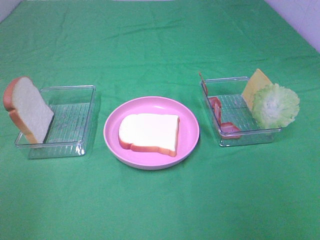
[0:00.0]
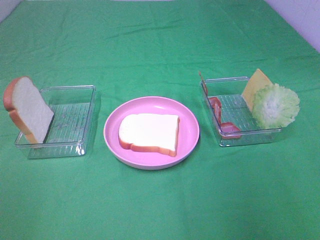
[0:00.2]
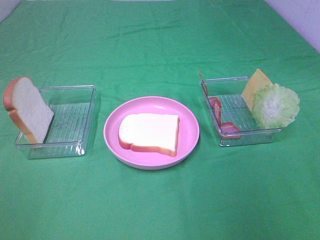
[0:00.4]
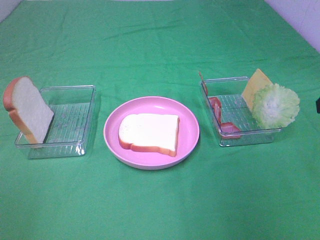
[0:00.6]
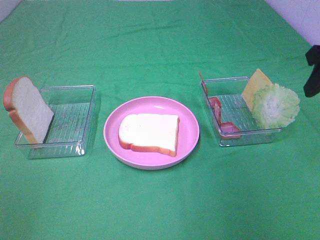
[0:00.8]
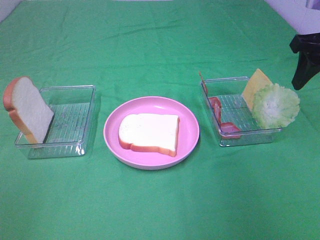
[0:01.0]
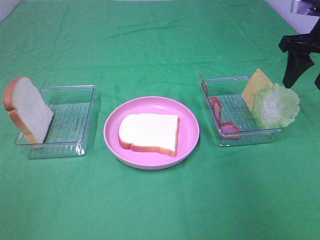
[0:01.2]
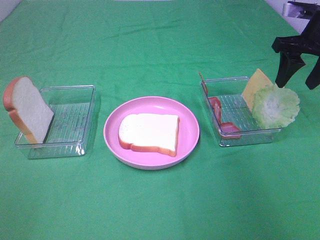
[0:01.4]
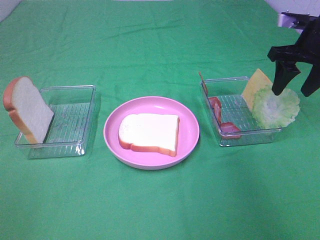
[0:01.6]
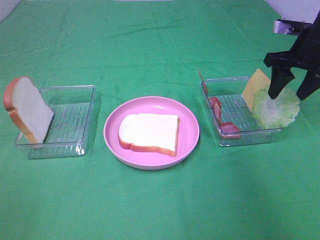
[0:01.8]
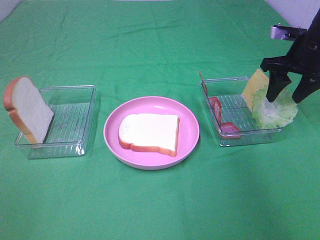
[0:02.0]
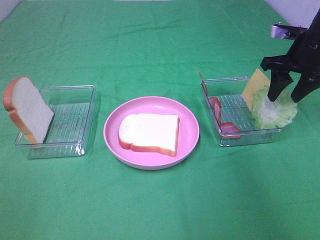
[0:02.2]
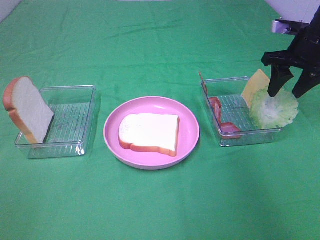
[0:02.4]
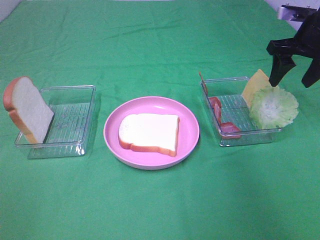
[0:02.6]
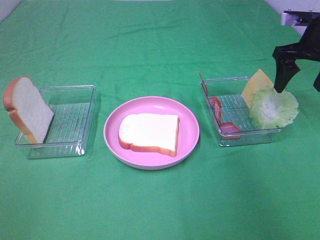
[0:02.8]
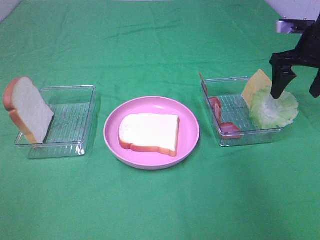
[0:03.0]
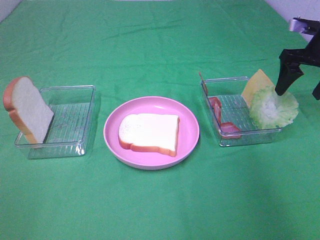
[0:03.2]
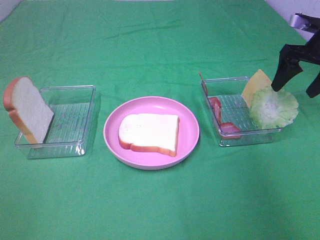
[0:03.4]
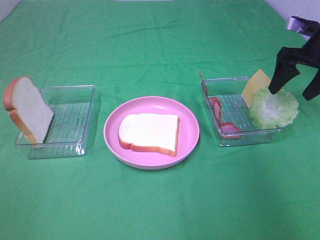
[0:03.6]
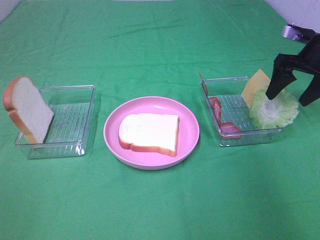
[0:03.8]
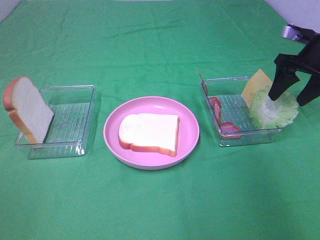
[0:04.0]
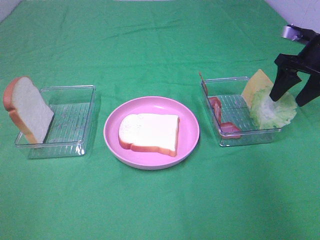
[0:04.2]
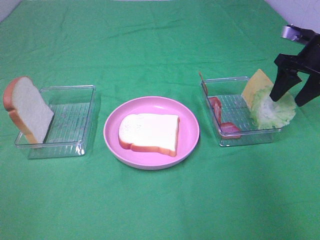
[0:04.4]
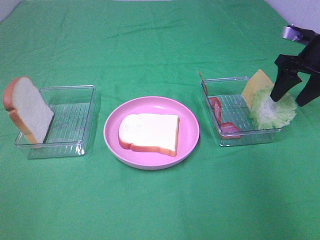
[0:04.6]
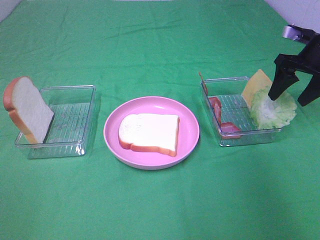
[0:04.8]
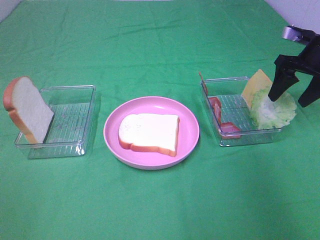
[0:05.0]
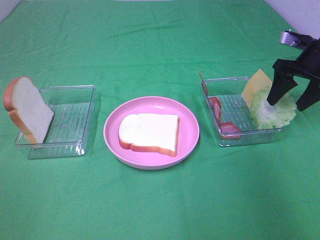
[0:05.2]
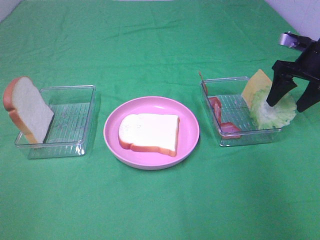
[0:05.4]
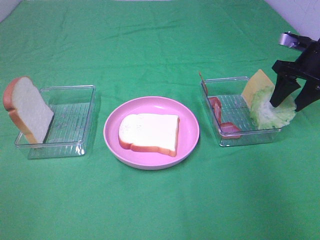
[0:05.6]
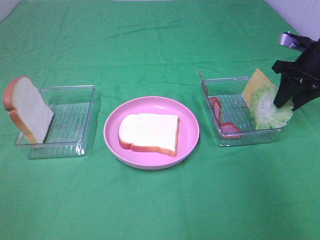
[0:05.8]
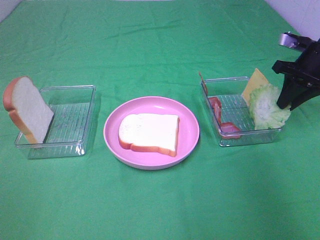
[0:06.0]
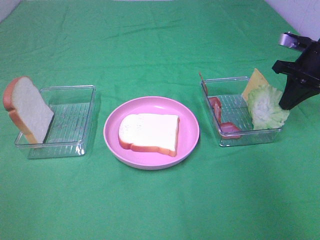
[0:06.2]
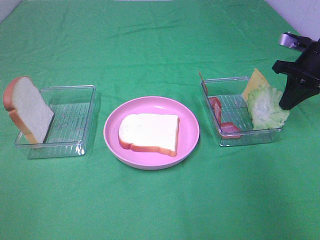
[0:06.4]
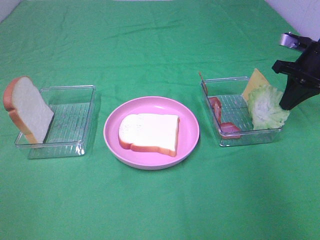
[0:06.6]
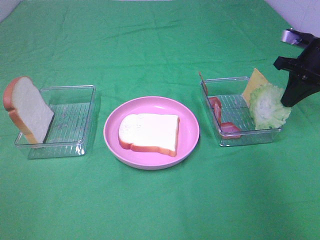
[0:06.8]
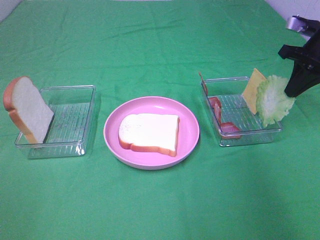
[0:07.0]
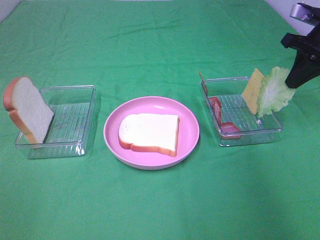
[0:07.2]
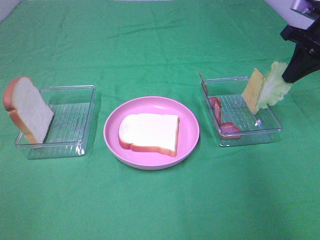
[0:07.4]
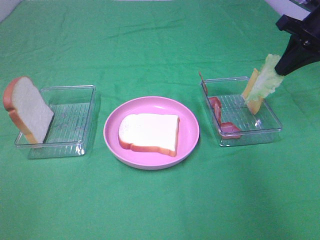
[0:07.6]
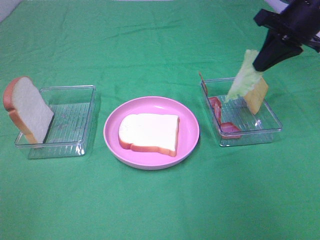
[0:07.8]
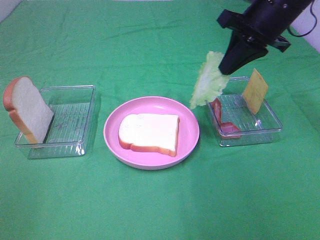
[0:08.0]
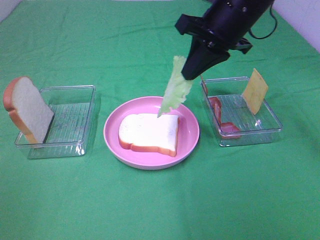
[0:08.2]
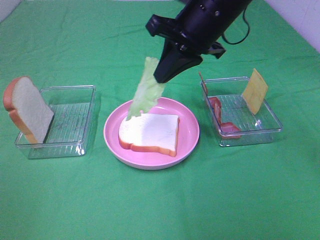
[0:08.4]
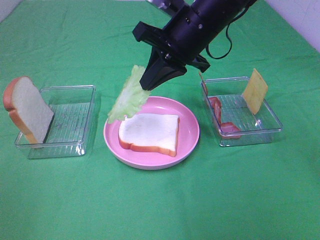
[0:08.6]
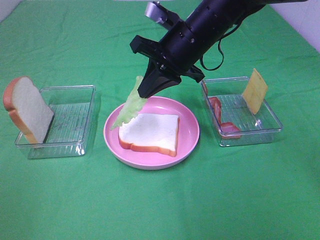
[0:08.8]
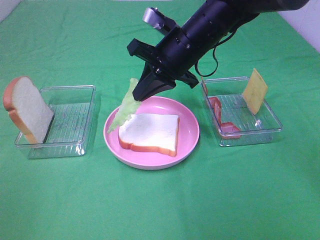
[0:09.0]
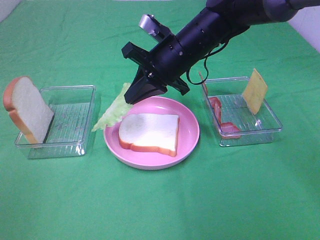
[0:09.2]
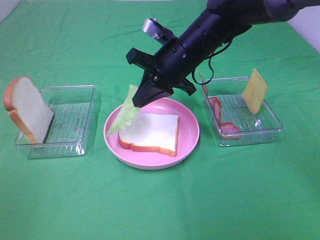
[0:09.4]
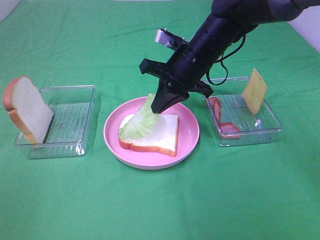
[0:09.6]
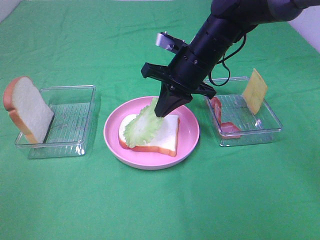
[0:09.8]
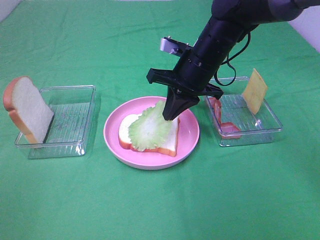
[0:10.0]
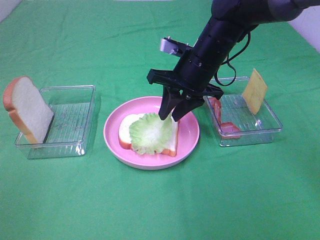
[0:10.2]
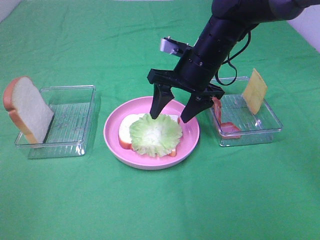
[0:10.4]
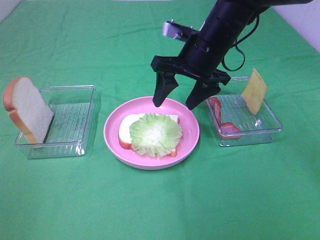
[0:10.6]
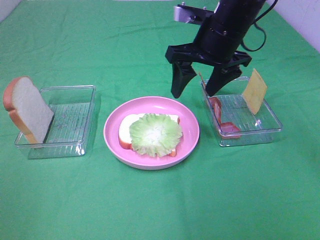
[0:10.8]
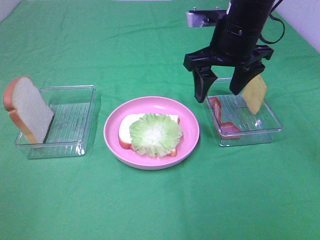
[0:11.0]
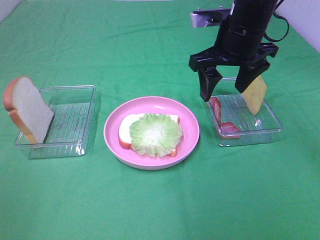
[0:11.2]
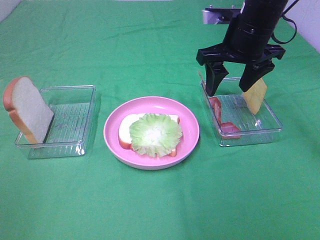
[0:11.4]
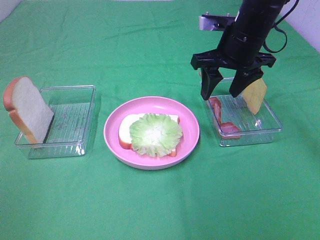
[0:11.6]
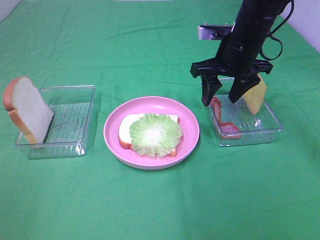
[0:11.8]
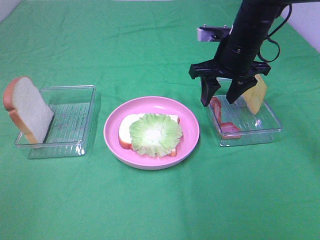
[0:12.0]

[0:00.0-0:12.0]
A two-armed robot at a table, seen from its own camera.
Task of the whole recording: Make sandwiches.
Step, 0:00.0 to 0:06.6: Right hand:grab the lettuce slice.
Step, 0:06.8 to 0:10.4: Right hand:place the lettuce slice on the bread slice.
0:00.0 to 0:01.6: The right gripper heads forward, covering about 35 cm.
0:01.6 to 0:04.4: The grippers make only small movements.
0:04.4 to 0:06.0: The right gripper closes up.
0:06.0 to 0:07.6: The right gripper travels upward by about 10 cm.
0:07.6 to 0:09.0: The right gripper shifts about 25 cm to the left.
0:09.0 to 0:10.4: The right gripper opens up.
0:10.4 to 0:12.0: The right gripper shifts some 5 cm to the right.

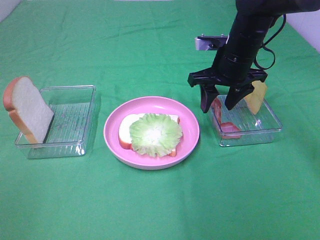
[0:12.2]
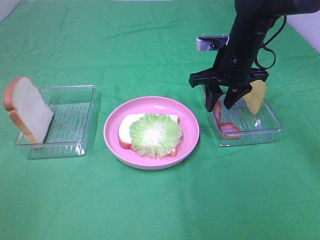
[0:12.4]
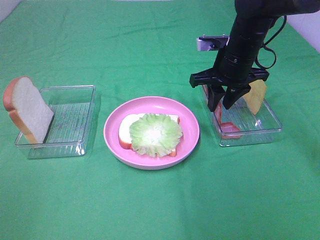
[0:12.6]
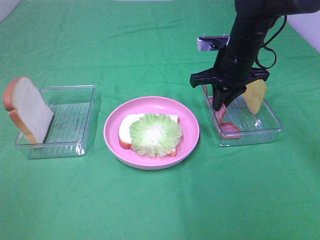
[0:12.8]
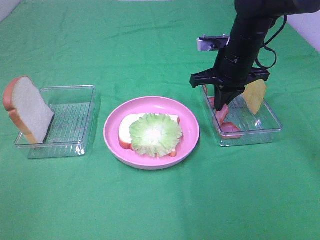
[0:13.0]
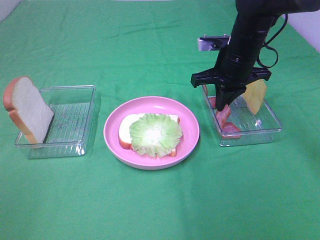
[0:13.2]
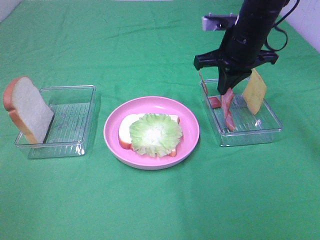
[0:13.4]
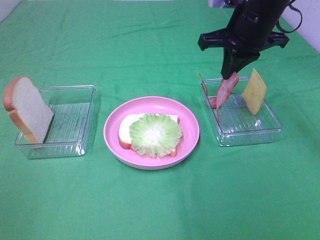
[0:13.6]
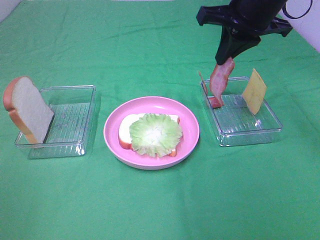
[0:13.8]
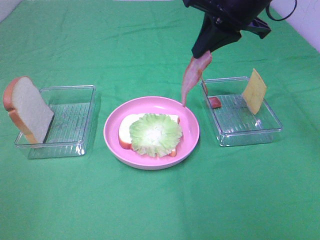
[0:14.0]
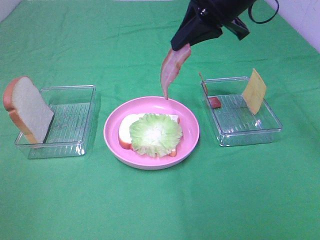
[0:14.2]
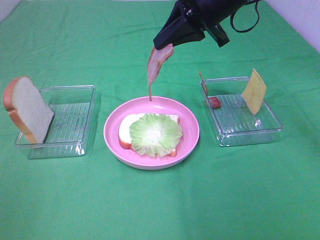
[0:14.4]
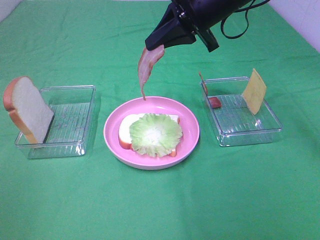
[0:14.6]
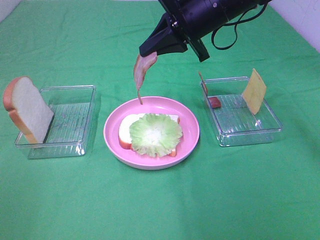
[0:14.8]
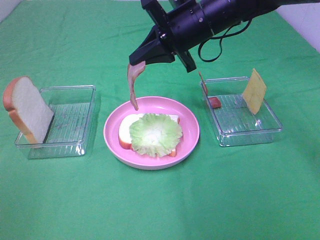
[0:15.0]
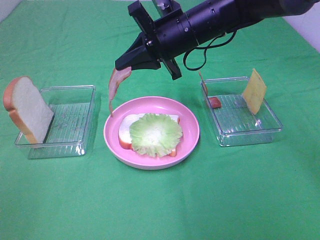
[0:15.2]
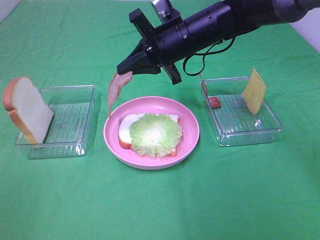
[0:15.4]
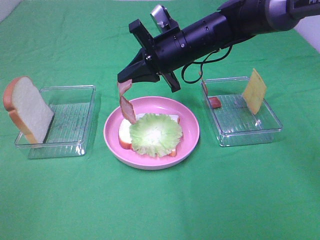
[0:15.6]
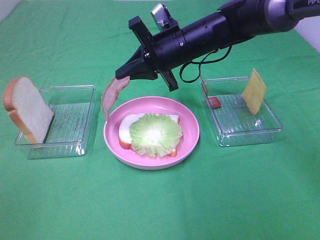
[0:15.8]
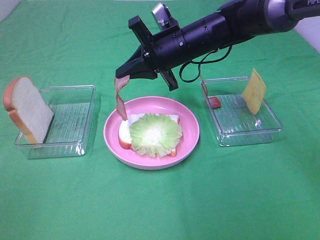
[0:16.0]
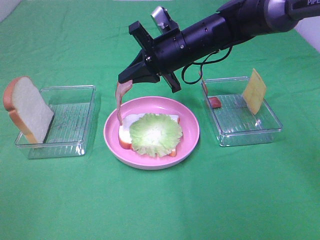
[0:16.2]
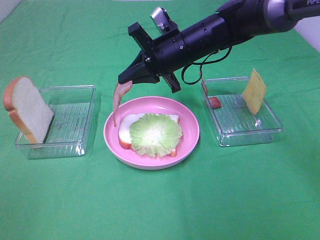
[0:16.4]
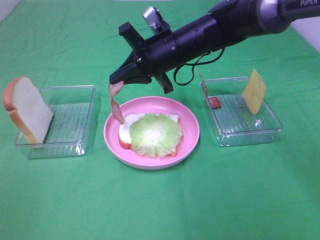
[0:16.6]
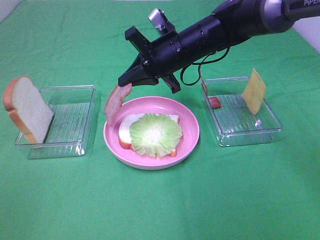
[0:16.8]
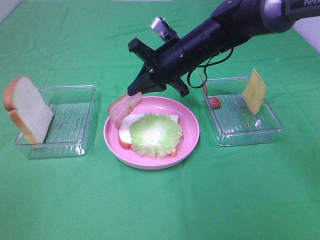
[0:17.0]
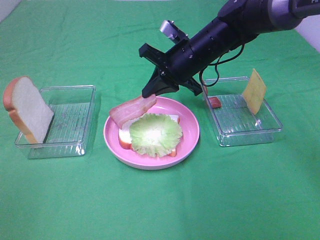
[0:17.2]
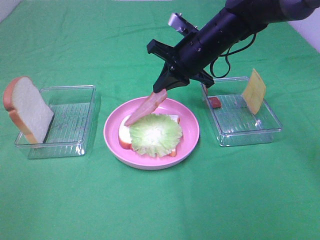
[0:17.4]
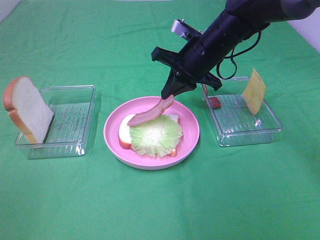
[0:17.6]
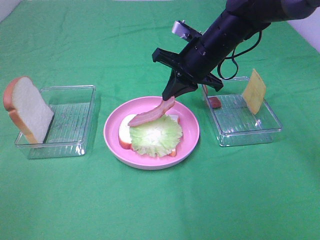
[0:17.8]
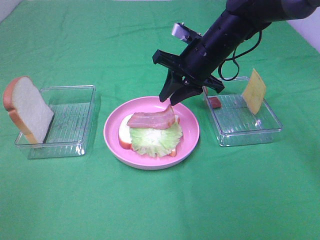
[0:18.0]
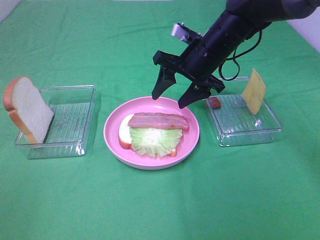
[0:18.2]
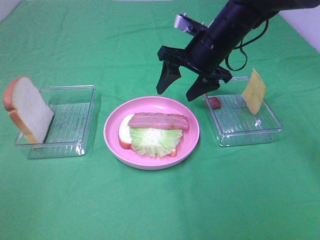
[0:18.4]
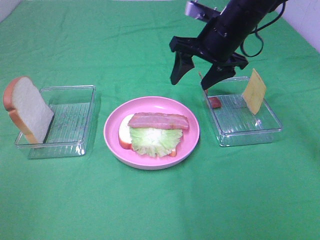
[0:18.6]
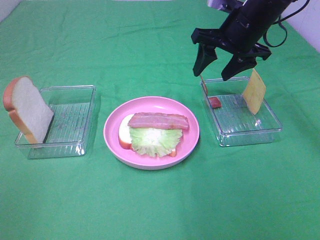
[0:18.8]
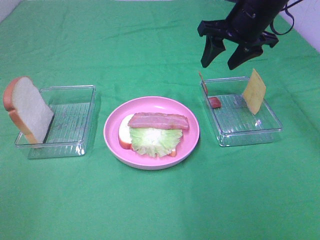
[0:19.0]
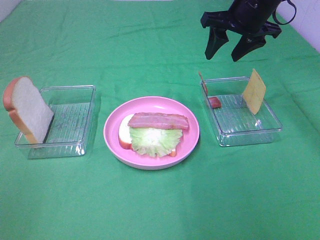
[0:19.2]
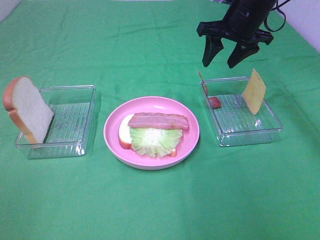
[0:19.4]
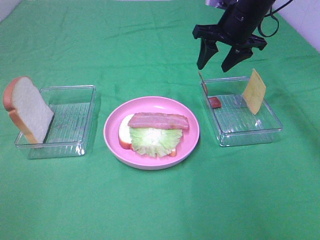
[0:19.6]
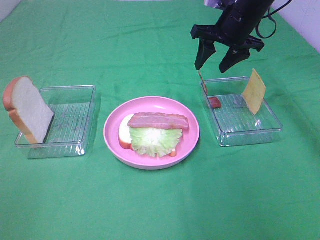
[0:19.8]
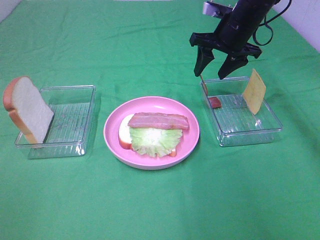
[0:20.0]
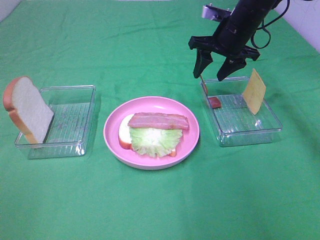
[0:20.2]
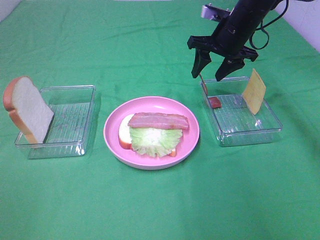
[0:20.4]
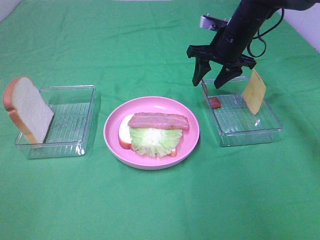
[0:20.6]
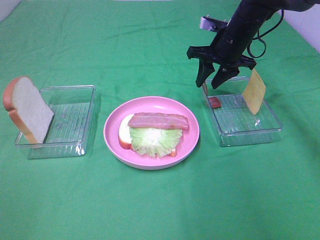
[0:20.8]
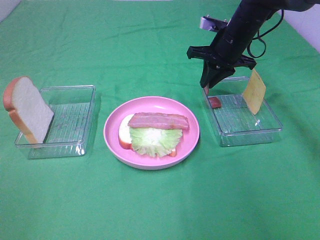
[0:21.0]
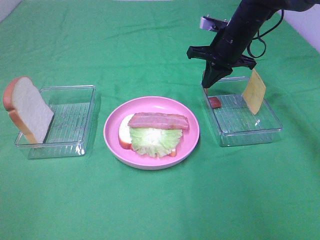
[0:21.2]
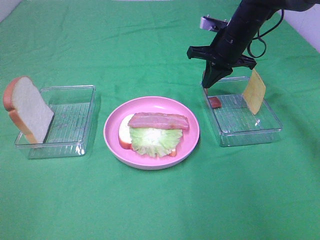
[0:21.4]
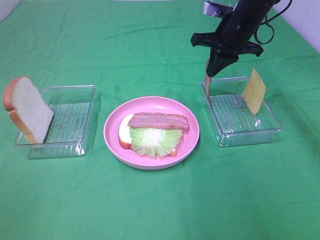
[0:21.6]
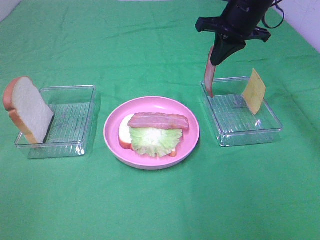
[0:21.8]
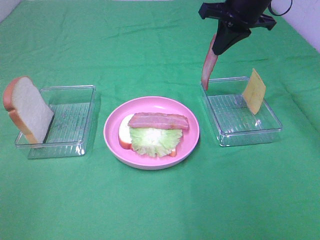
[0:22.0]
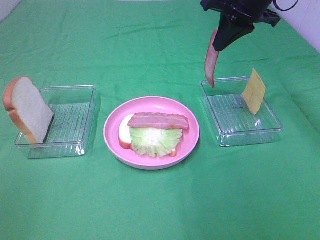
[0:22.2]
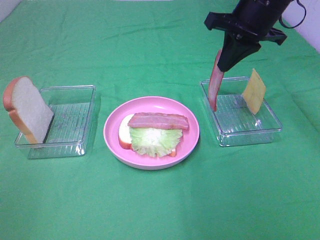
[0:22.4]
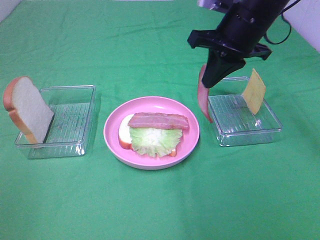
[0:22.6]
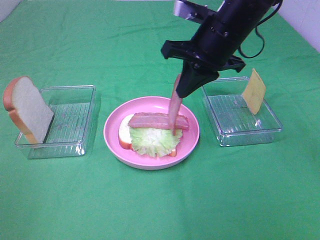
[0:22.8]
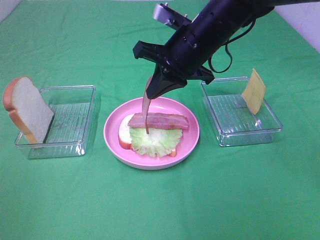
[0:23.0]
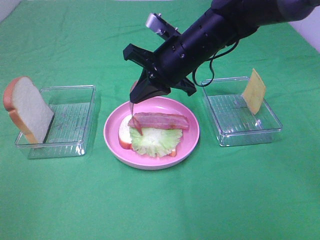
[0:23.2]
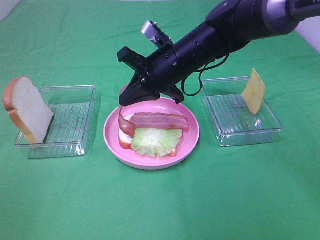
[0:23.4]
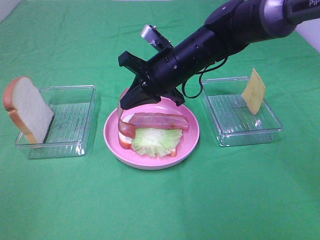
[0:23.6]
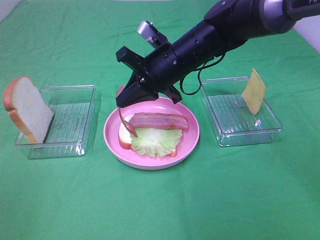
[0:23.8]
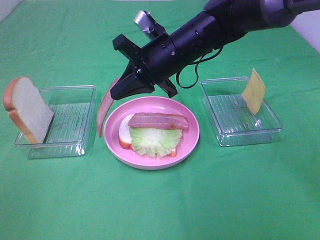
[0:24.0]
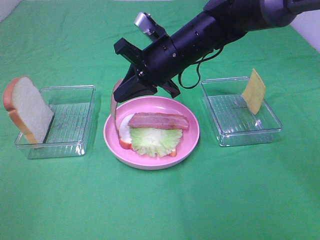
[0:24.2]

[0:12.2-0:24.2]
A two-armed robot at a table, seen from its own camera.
Task of the whole recording: Make sandwiches.
Step, 0:13.4 to 0:18.2: Right hand:place bacon on lettuce slice.
Step, 0:18.4 to 0:21.0: Right hand:grab the bacon.
0:12.2 to 0:13.8: The right gripper shifts about 10 cm upward, and closes its fingers.
0:13.8 to 0:15.2: The right gripper shifts about 10 cm to the left and downward.
0:15.2 to 0:16.6: The grippers stay close to where they were, moving slightly.
0:16.6 to 0:18.2: The right gripper moves to the right, approximately 5 cm, and opens.
0:18.2 to 0:19.8: The right gripper heads to the right and forward, covering about 10 cm.
0:19.8 to 0:21.2: The right gripper closes up.
0:21.2 to 0:22.6: The right gripper shifts some 15 cm backward and upward.
0:22.6 to 0:24.2: The right gripper is displaced to the left and downward by some 10 cm.
